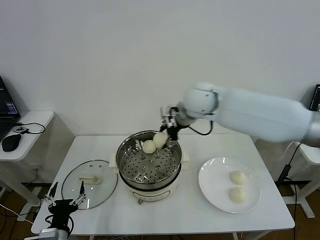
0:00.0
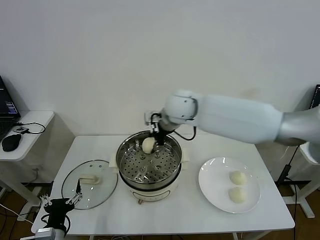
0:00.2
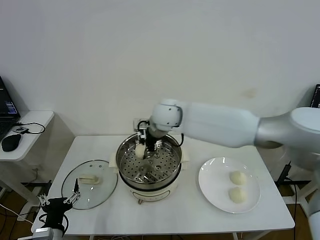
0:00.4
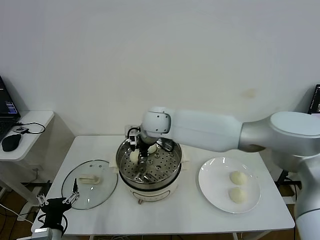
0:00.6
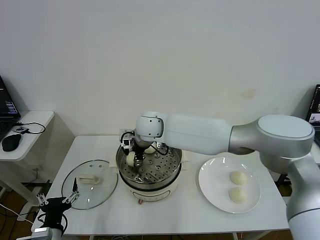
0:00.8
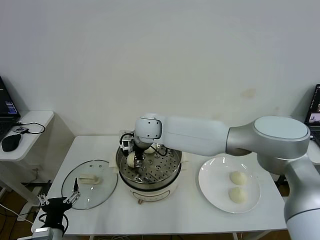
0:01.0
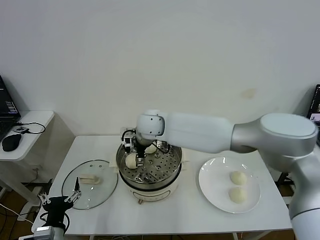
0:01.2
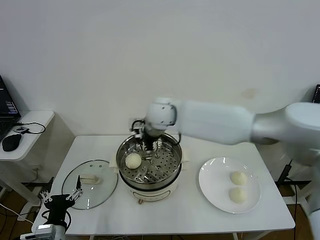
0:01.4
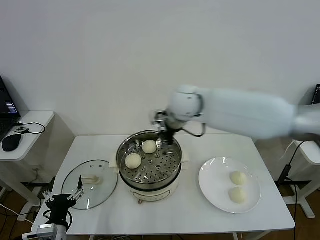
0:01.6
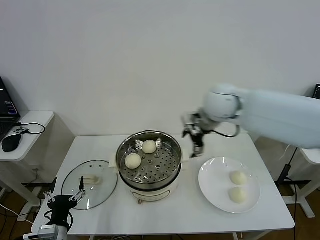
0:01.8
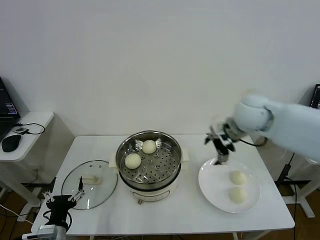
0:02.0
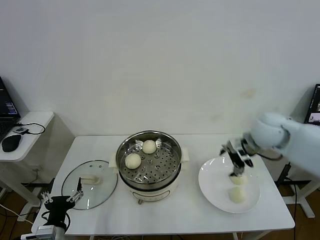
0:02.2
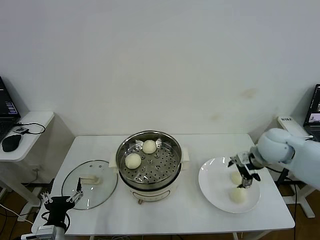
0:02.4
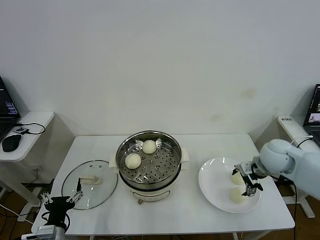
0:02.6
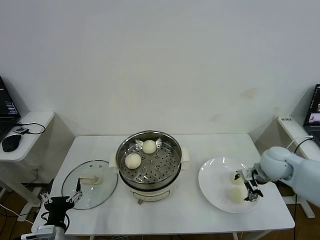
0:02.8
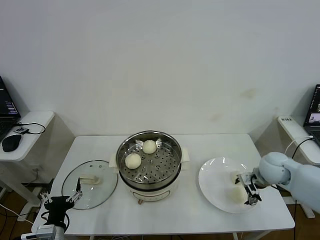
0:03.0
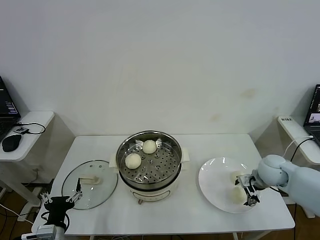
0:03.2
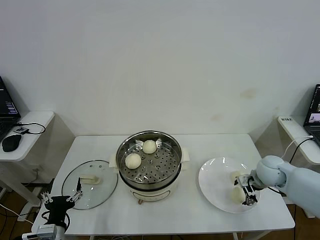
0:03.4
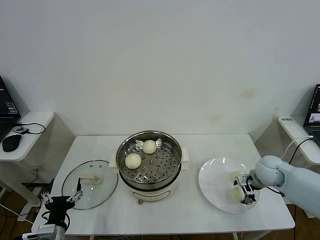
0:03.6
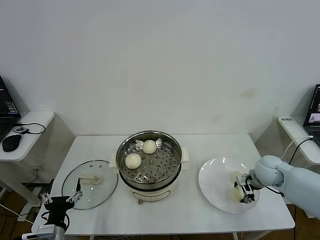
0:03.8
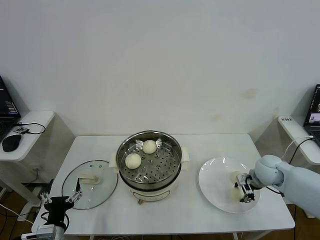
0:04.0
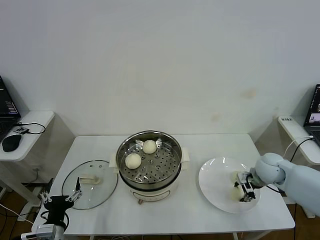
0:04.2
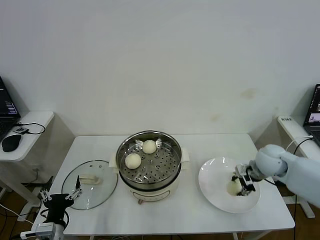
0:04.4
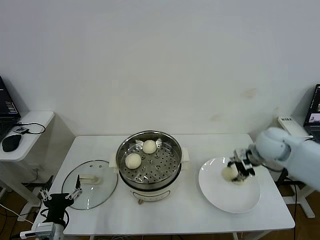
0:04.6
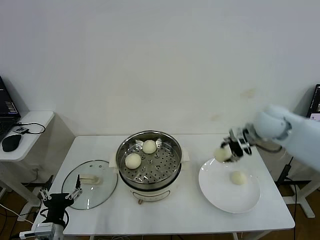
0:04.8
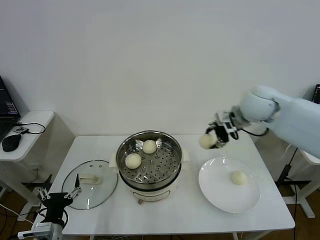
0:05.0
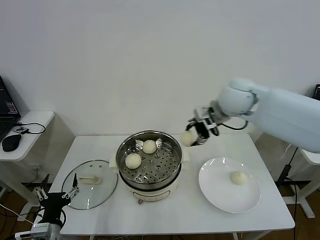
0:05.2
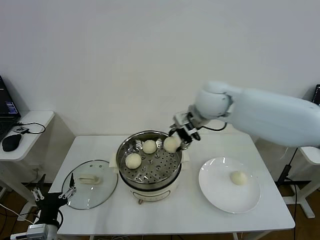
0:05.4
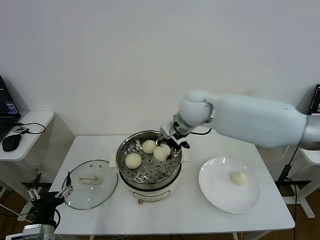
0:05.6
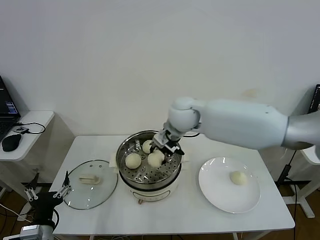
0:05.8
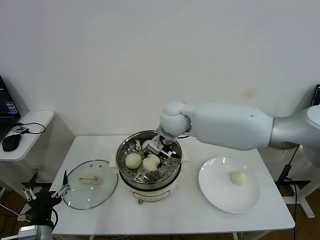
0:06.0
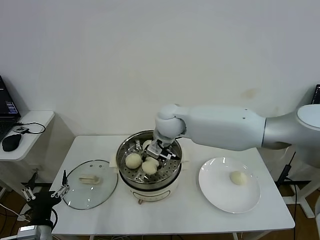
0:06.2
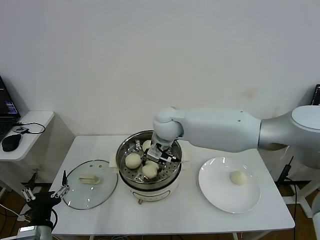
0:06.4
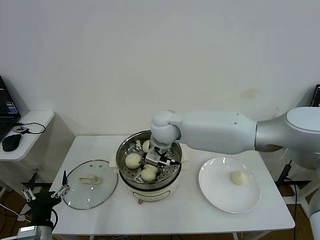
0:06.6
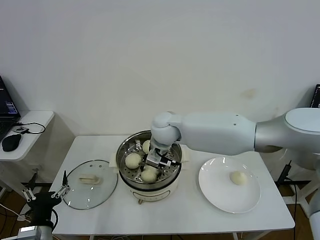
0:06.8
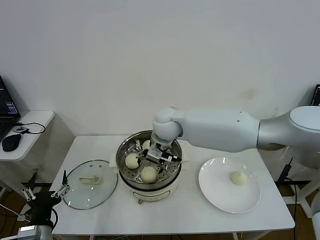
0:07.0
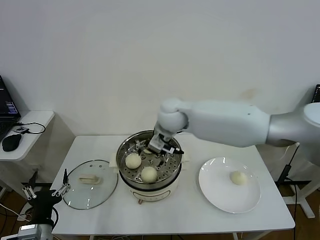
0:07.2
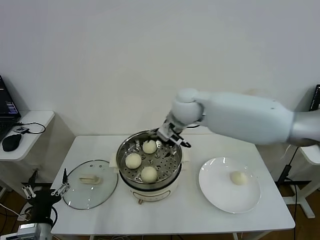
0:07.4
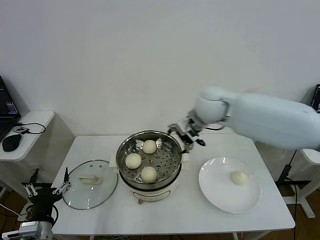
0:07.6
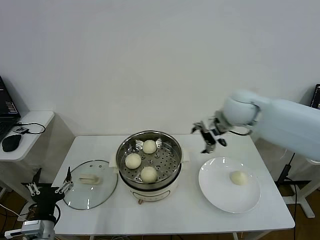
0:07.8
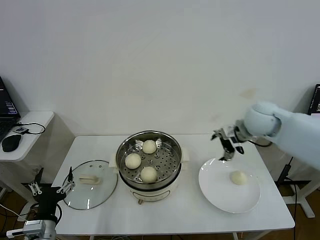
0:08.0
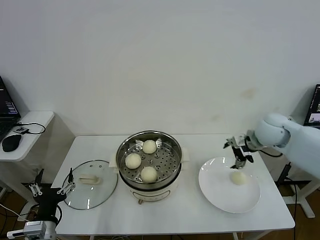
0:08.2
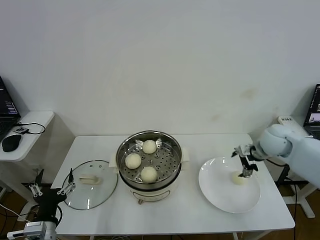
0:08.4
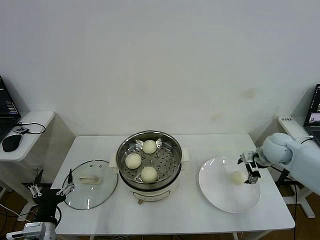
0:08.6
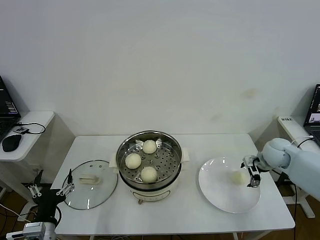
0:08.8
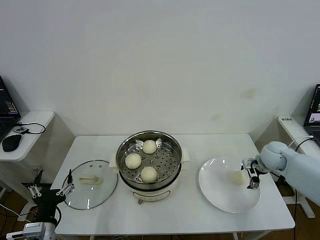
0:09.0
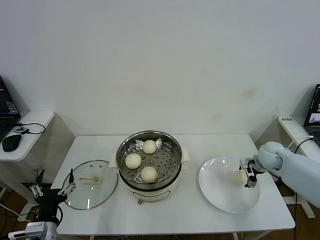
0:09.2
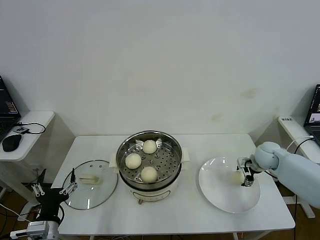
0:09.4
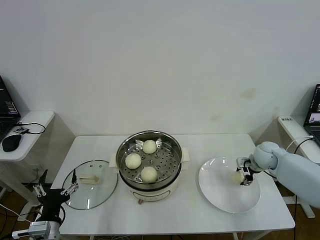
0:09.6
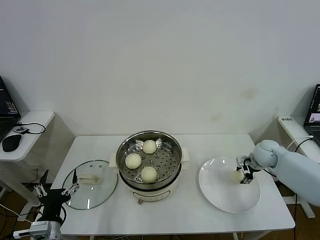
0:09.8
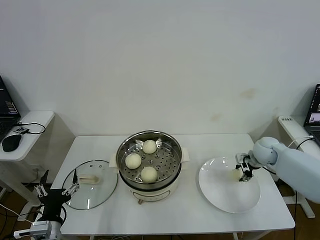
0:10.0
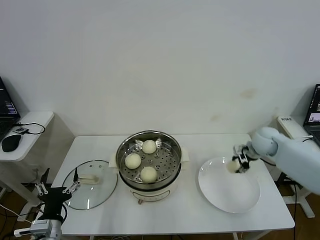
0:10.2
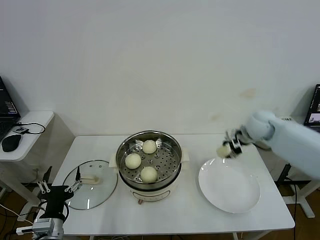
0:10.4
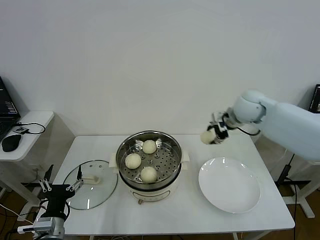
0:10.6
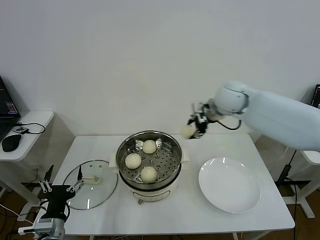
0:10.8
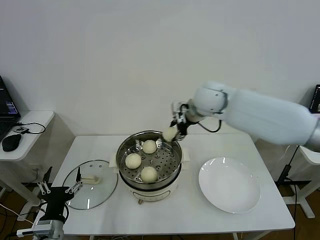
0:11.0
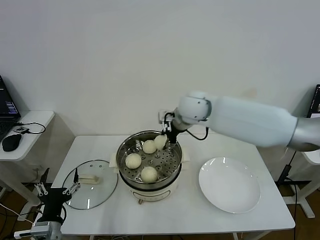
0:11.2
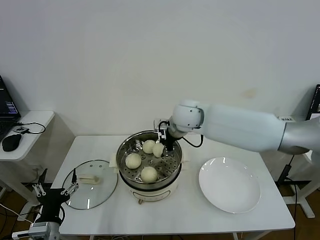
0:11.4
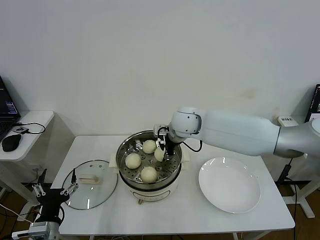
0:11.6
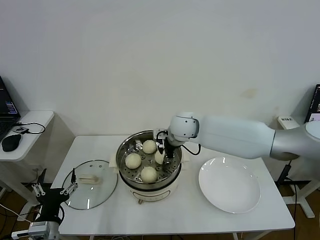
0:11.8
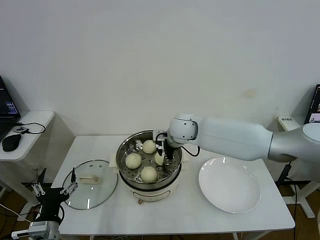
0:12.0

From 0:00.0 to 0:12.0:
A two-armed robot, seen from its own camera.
Step, from 0:01.2 to 0:04.0: Grasp the baozi in the plate with right gripper.
Step, from 0:04.2 to 0:06.8: Place the baozi on the steamer with right gripper.
Step, from 0:07.2 to 0:09.6: Grasp the baozi in the plate with right gripper.
From 0:00.0 to 0:01.6: The right gripper goes to the left and returns, about 10 cm each way, and opens.
From 0:01.6 to 0:03.0: The right gripper shifts roughly 35 cm to the right and downward.
From 0:03.0 to 0:04.4: The right gripper ends up about 5 cm from where it was, and closes.
From 0:04.4 to 0:06.0: The right gripper heads to the left, covering approximately 30 cm.
From 0:06.0 to 0:07.6: The right gripper shifts some 15 cm to the right and upward, and opens its fingers.
From 0:07.6 to 0:09.0: The right gripper heads to the right and downward, covering roughly 30 cm.
From 0:09.0 to 0:10.4: The right gripper is displaced upward, to the left and forward by roughly 15 cm, and closes.
From 0:10.4 to 0:12.0: The right gripper shifts roughly 25 cm to the left.

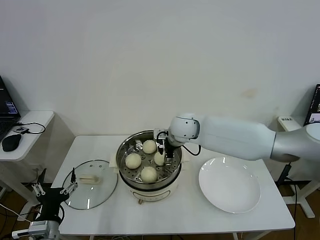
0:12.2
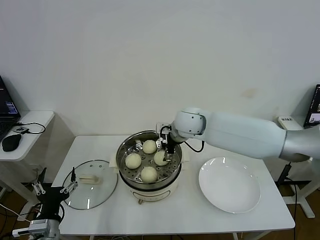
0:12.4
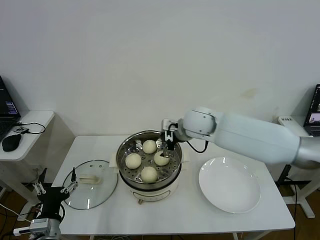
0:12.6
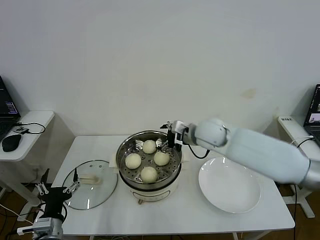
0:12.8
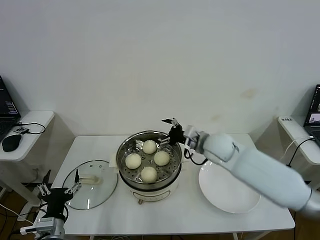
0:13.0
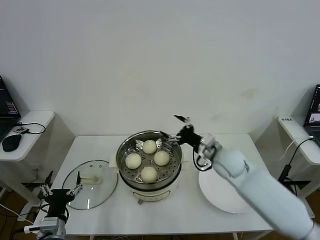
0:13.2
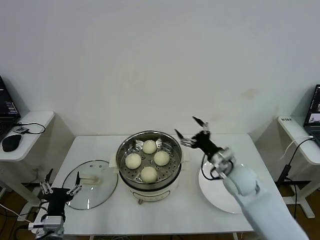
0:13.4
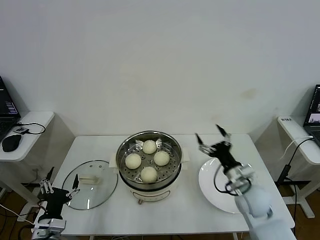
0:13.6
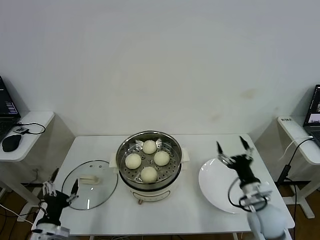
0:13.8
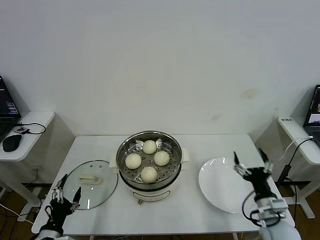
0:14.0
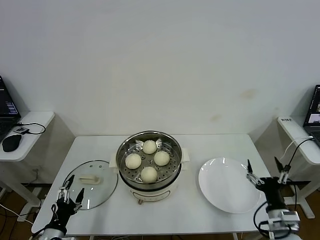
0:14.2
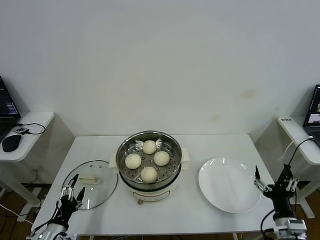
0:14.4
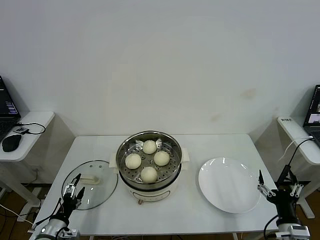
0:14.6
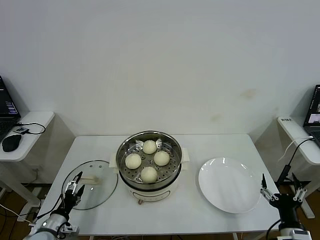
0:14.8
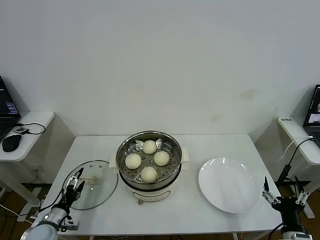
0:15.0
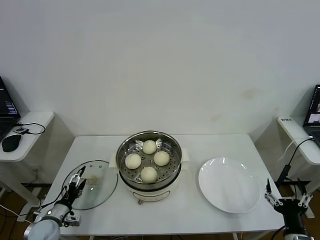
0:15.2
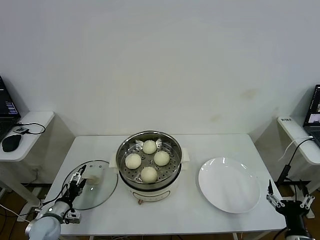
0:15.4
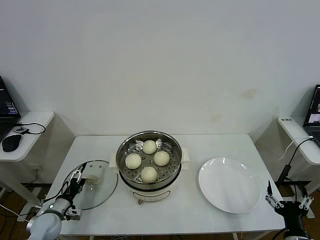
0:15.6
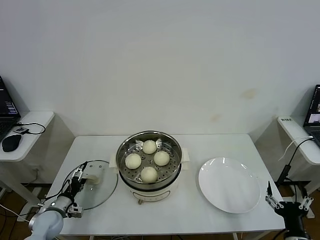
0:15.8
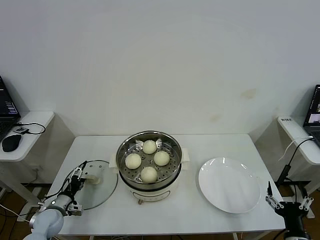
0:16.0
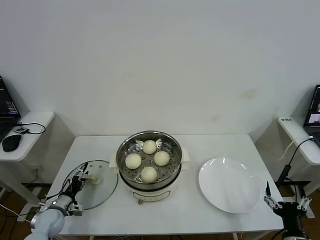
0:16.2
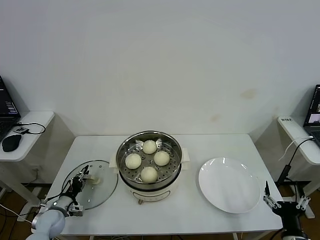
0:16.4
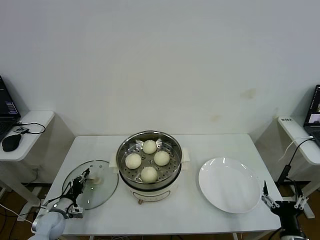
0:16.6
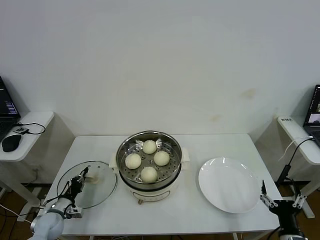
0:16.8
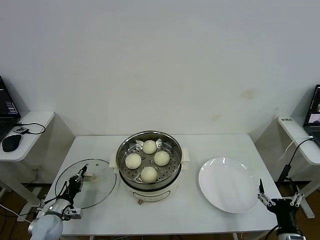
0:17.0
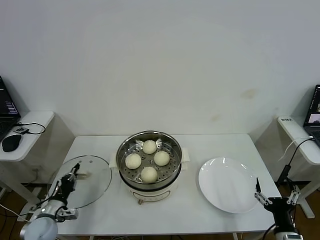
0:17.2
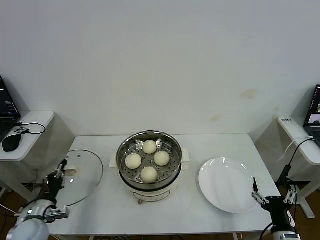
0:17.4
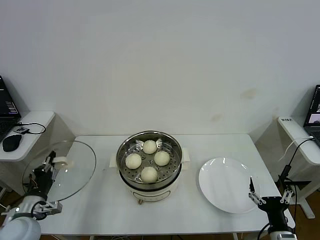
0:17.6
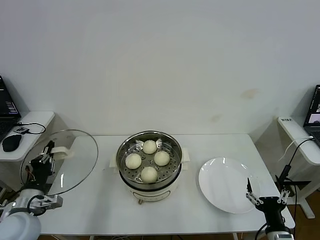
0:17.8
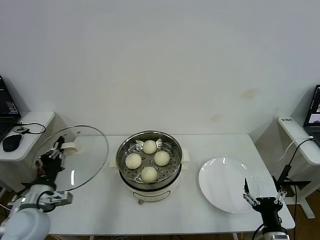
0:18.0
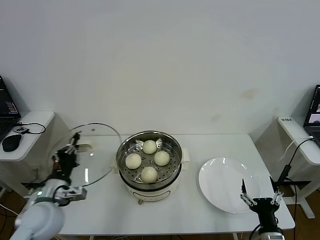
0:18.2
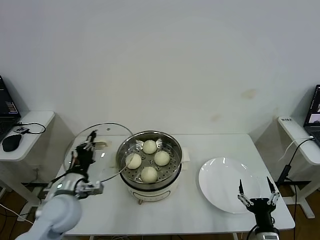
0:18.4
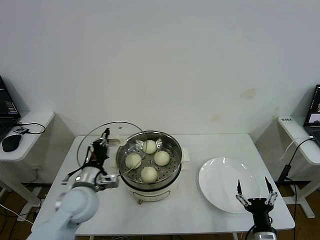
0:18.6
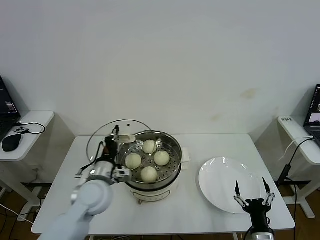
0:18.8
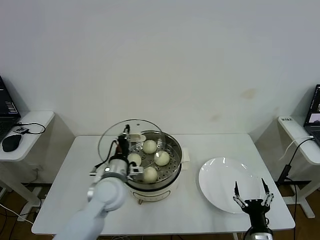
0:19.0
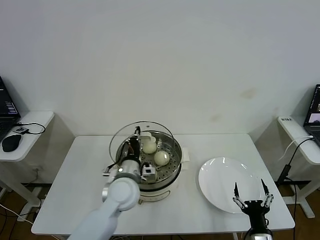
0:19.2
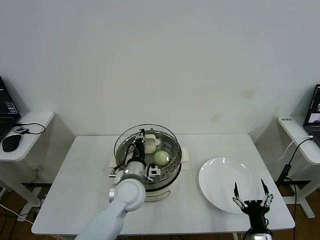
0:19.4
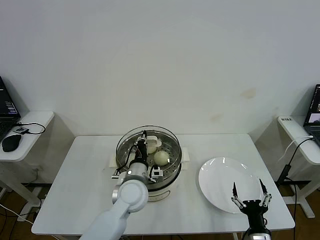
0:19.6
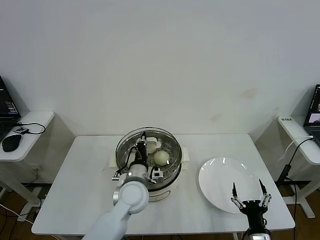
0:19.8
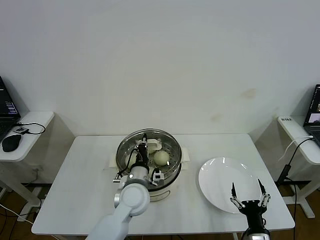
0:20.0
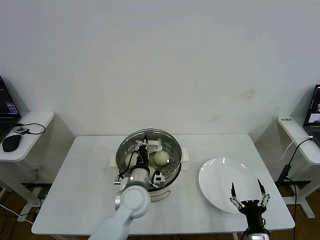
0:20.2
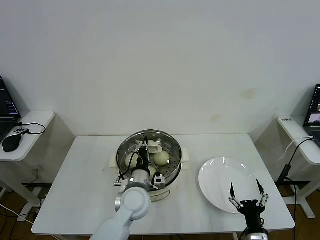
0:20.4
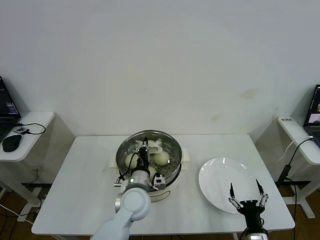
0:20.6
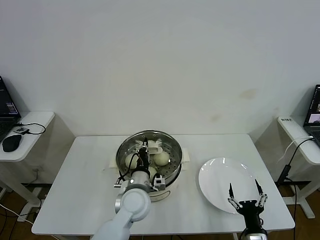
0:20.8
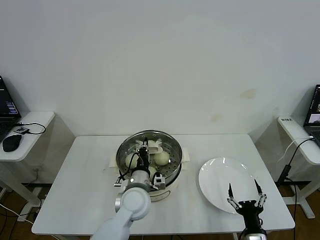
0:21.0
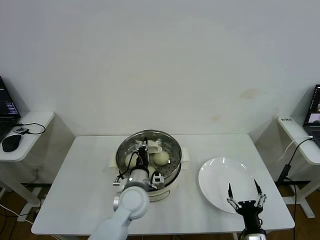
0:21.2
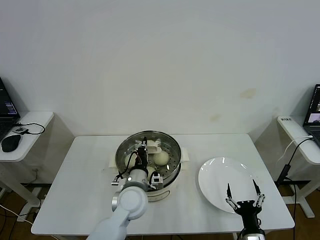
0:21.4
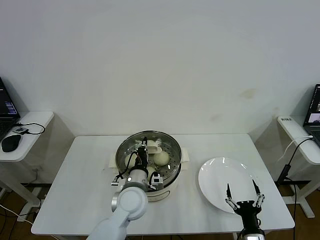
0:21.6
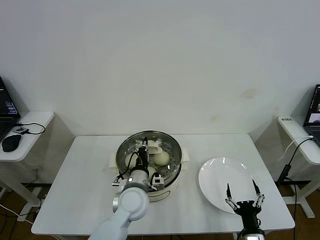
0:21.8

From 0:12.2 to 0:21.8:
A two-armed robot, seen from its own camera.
Step, from 0:12.4 to 0:16.8: Grasp the pot lid with left gripper.
From 0:12.2 to 0:13.8: The left gripper shifts by some 5 cm. Meanwhile the right gripper goes about 35 cm backward, to the right and downward.
From 0:13.8 to 0:15.4: The right gripper shifts roughly 15 cm backward. The left gripper shifts about 15 cm forward, downward and to the left.
From 0:15.4 to 0:17.0: The left gripper closes up.
From 0:17.0 to 0:18.6: The left gripper heads upward and to the right, covering about 25 cm. The right gripper is displaced to the left by about 5 cm.
From 0:18.6 to 0:20.2: The left gripper goes approximately 15 cm to the right.
From 0:20.2 to 0:21.8: Both grippers stay put.
